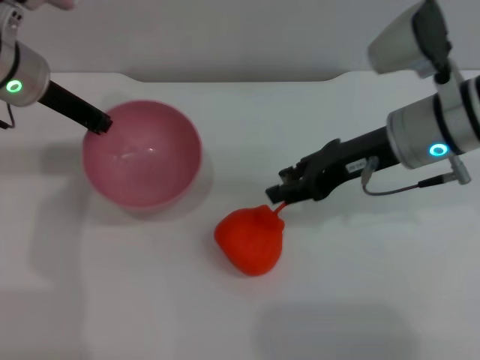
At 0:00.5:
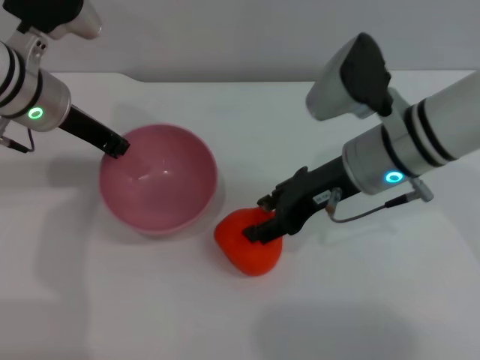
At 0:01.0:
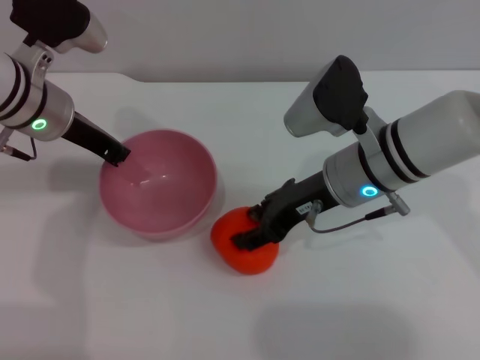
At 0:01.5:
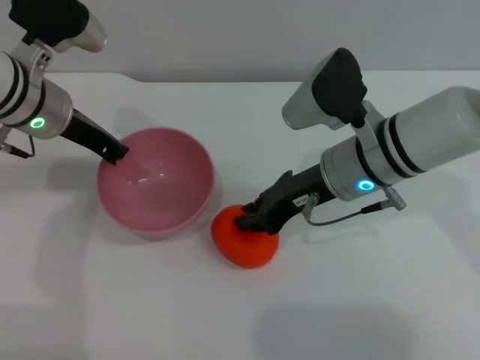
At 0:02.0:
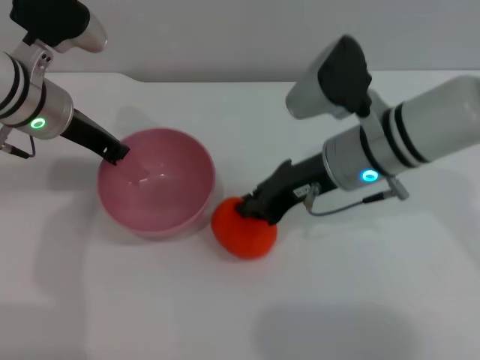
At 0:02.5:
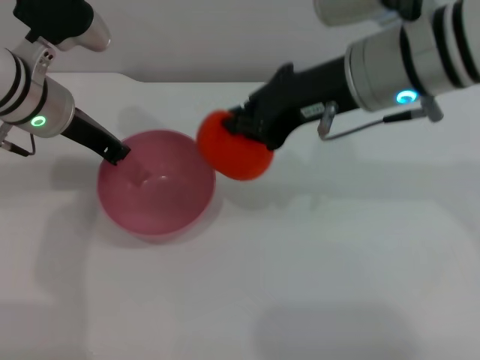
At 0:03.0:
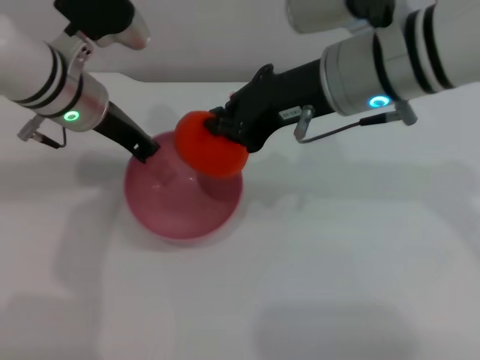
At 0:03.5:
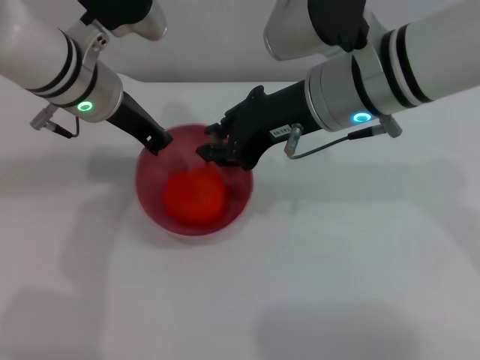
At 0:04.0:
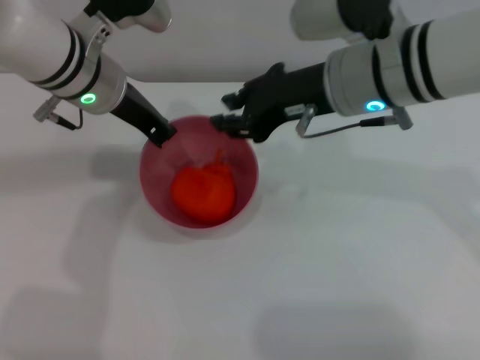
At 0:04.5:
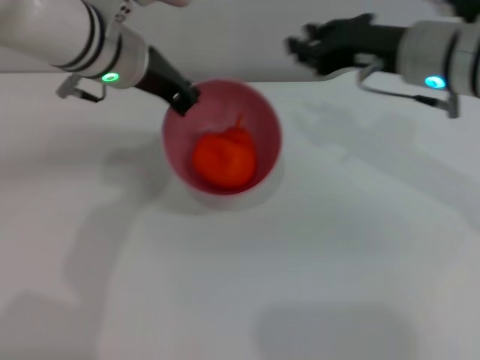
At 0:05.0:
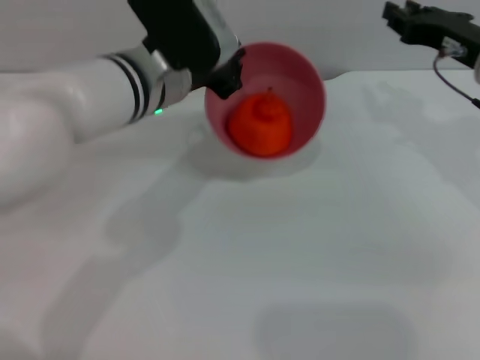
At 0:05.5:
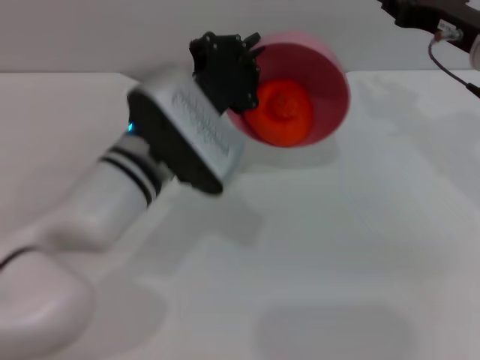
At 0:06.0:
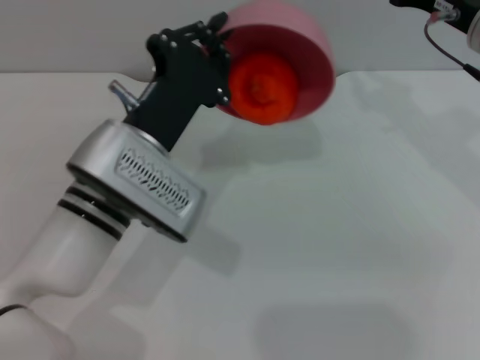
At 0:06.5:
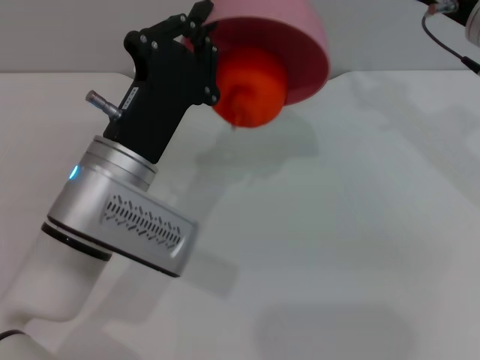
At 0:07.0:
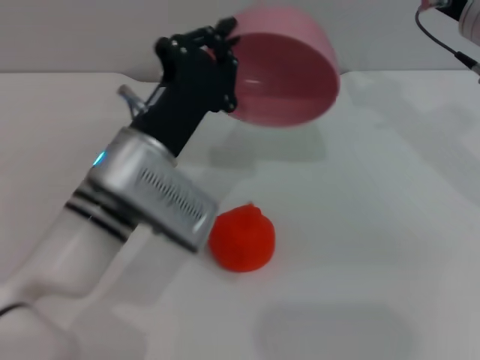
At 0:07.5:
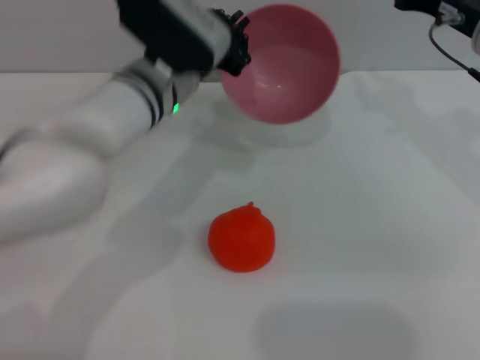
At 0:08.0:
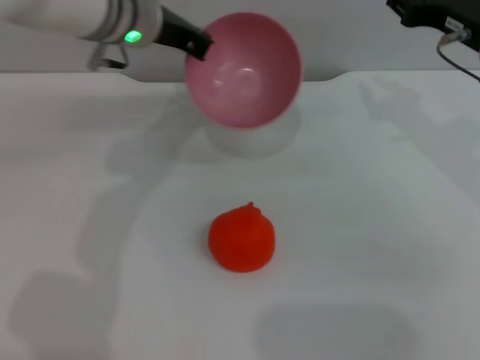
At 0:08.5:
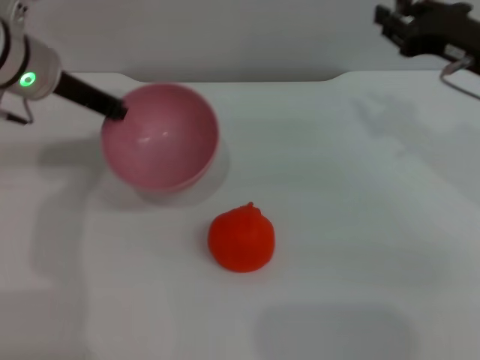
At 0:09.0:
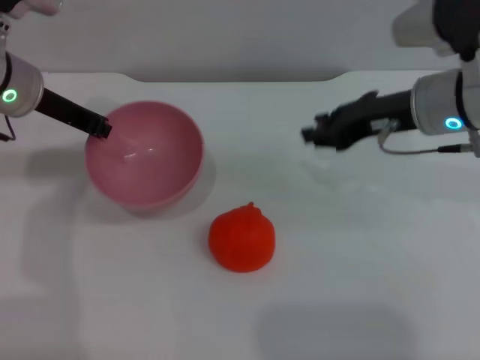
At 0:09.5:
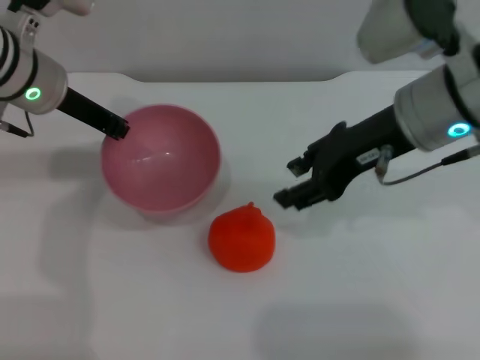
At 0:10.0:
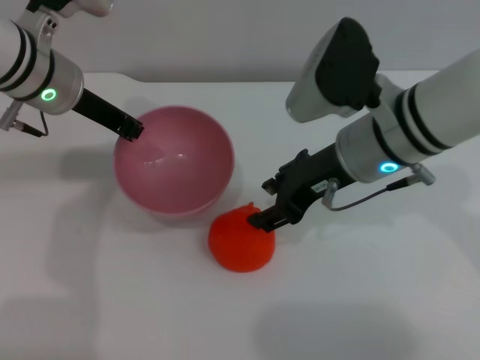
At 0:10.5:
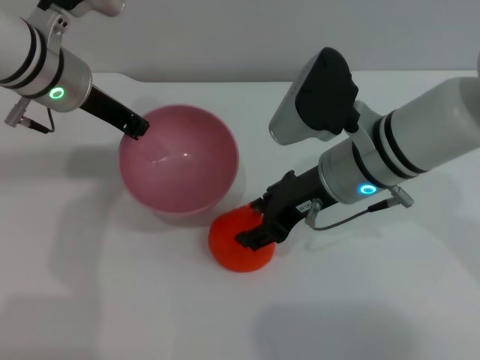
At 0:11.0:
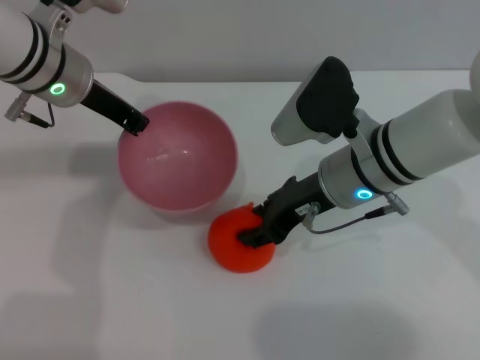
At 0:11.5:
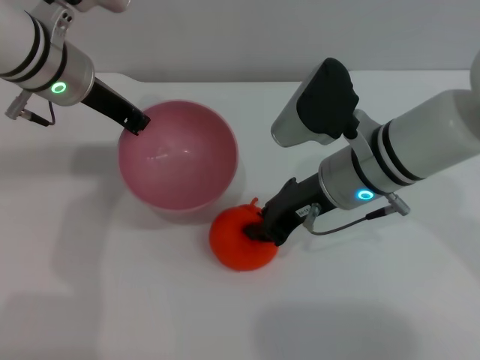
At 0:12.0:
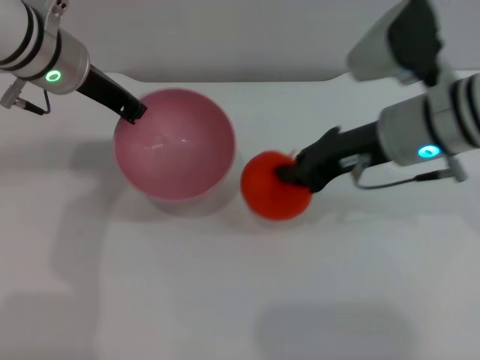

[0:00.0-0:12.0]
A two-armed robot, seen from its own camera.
Task of the whole recording: put the orange into the pink bowl and pour it out repeatedly.
Step, 0:00.0 to 0:02.0: Pick up the orange with the right gripper.
Step, 0:02.5 to 0:03.5: Place the orange into the bowl.
Step, 0:04.0 to 0:07.0: Pour the orange out of the bowl.
0:00.0 to 0:02.0: The right gripper is displaced to the left by roughly 5 cm, and closes.
0:02.0 to 0:04.0: The left gripper is displaced to the right by approximately 5 cm. The right gripper goes roughly 5 cm upward, and opens.
0:04.0 to 0:06.0: The left gripper is displaced backward and downward by roughly 15 cm; the right gripper heads to the right, covering about 10 cm.
0:06.0 to 0:08.0: The left gripper goes roughly 20 cm forward and upward.
0:08.0 to 0:10.0: The left gripper heads to the left, covering some 5 cm. Meanwhile the right gripper travels to the left by about 15 cm, and opens its fingers.
0:10.0 to 0:12.0: The right gripper closes.

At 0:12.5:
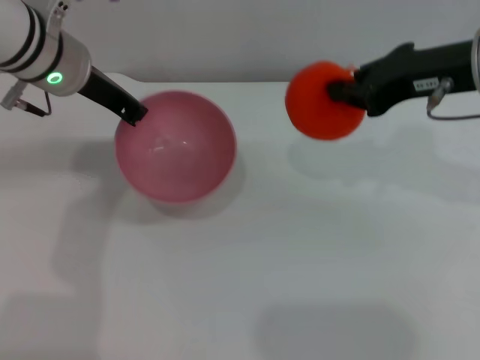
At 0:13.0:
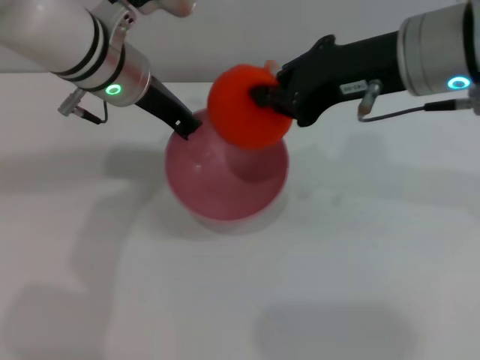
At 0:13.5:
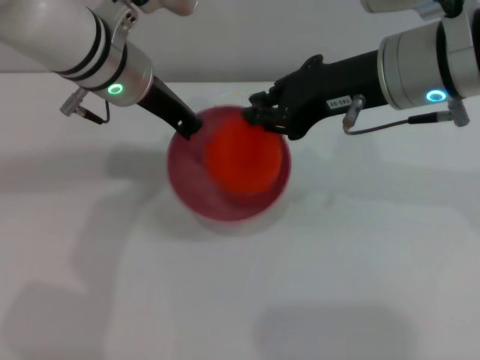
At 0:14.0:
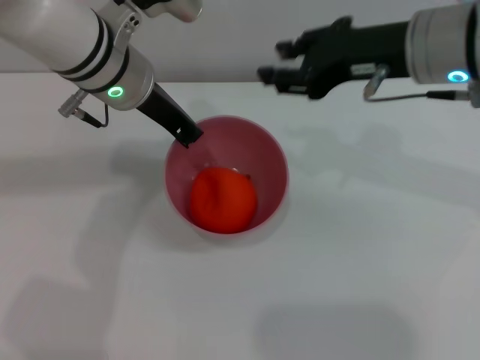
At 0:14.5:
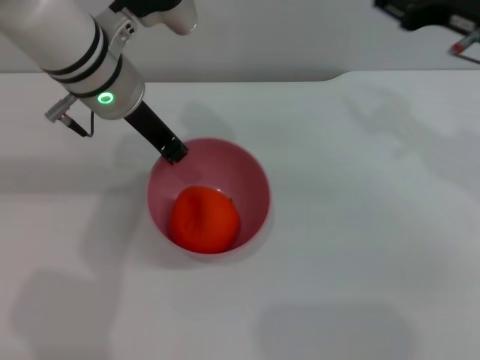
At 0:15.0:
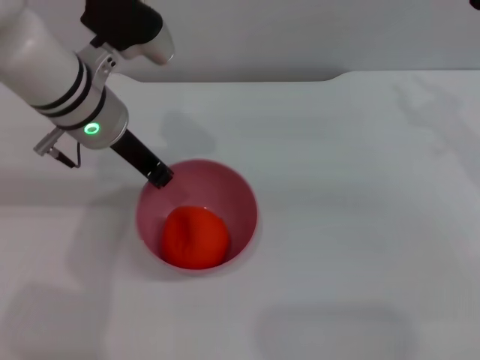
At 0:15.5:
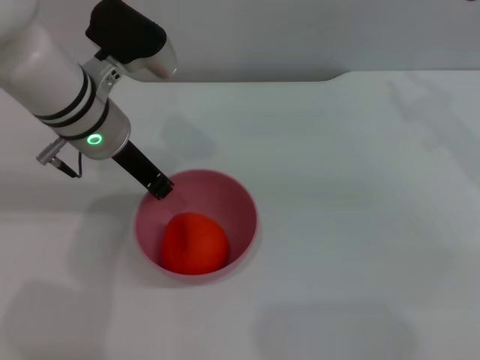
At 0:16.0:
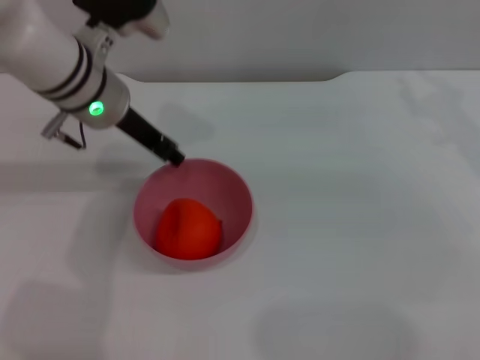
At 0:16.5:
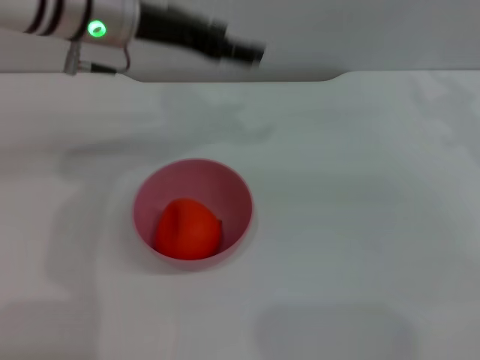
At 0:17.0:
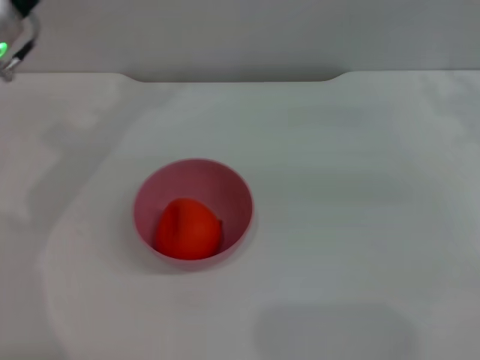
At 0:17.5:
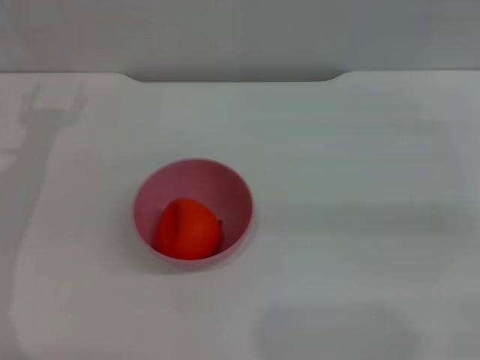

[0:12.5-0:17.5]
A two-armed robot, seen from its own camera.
Task of the whole recording: put the orange into the pink bowl and pour it out repeatedly.
Step, 0:12.5 to 0:13.5: Place the orange into the bowl.
Step, 0:14.0 to 0:16.0: Place the bowl on the table.
0:12.5 to 0:15.0: The right gripper travels to the right and downward by some 10 cm, and opens its fingers.
0:15.0 to 0:17.5: The right gripper shifts approximately 10 cm to the right, while the left gripper travels to the left by roughly 15 cm, and opens up.
